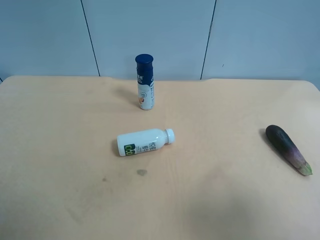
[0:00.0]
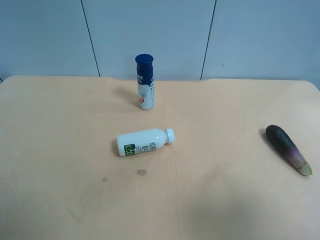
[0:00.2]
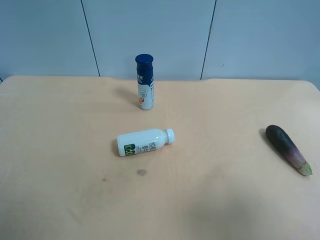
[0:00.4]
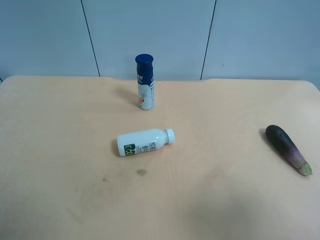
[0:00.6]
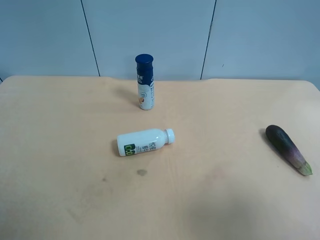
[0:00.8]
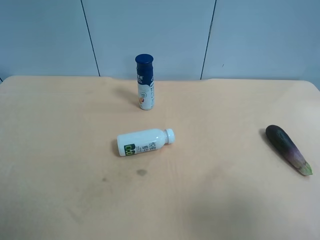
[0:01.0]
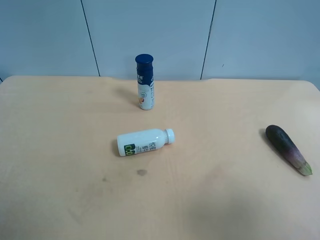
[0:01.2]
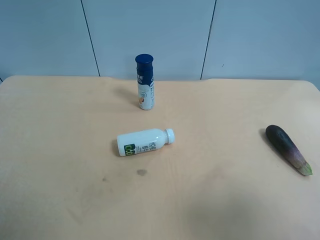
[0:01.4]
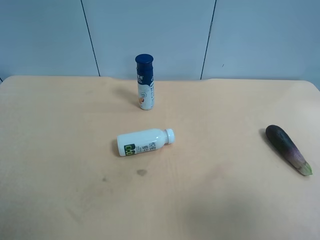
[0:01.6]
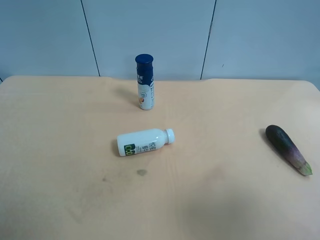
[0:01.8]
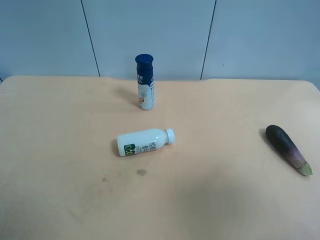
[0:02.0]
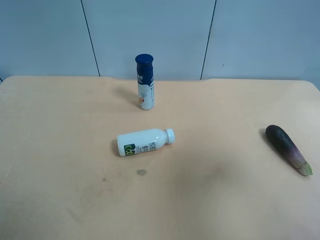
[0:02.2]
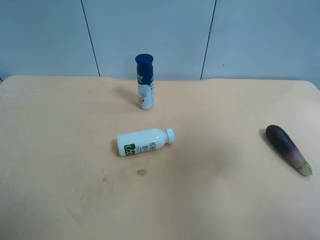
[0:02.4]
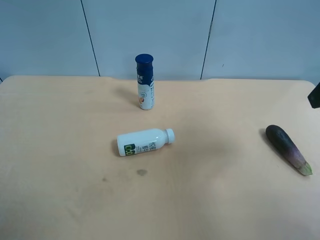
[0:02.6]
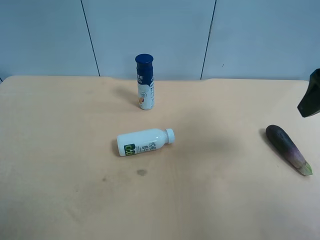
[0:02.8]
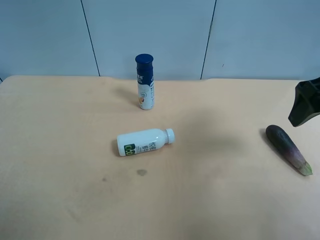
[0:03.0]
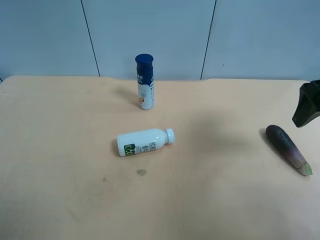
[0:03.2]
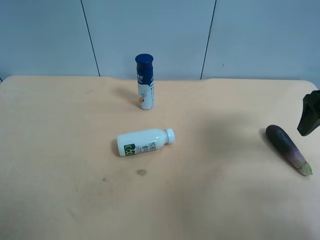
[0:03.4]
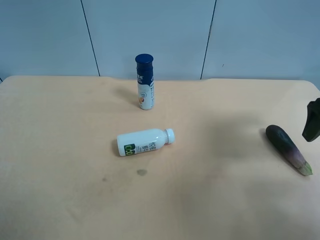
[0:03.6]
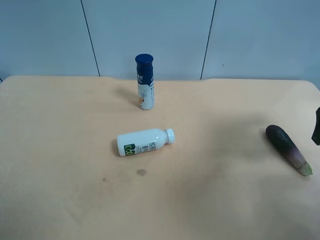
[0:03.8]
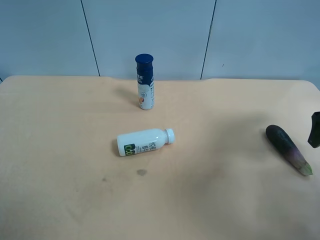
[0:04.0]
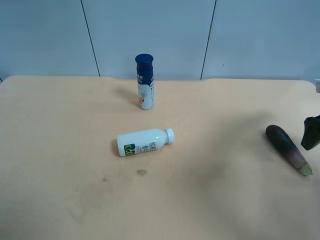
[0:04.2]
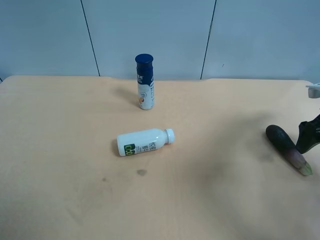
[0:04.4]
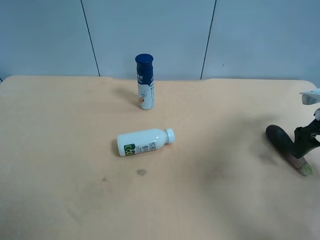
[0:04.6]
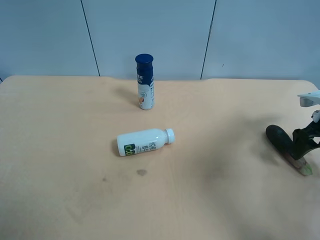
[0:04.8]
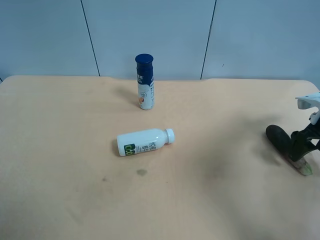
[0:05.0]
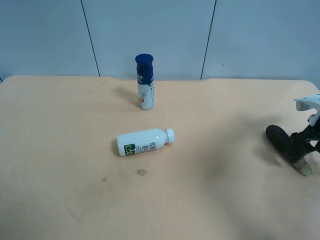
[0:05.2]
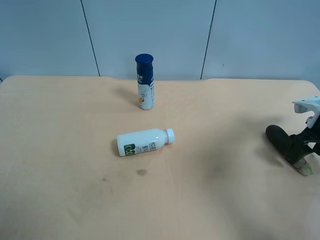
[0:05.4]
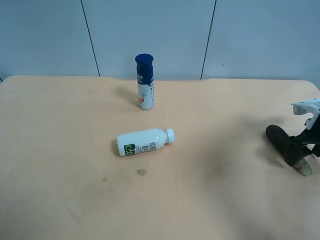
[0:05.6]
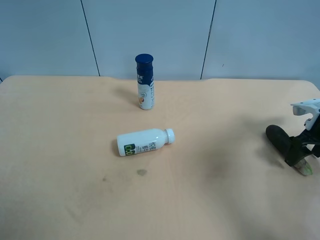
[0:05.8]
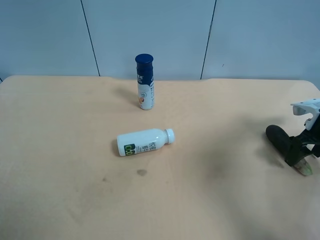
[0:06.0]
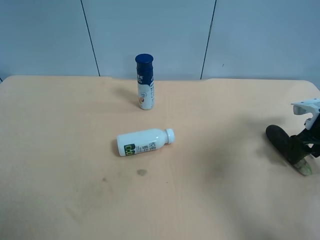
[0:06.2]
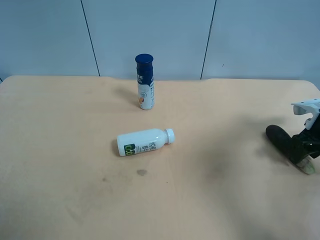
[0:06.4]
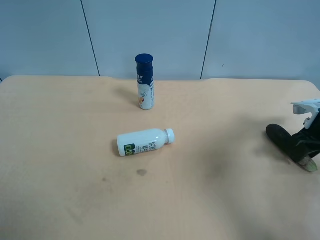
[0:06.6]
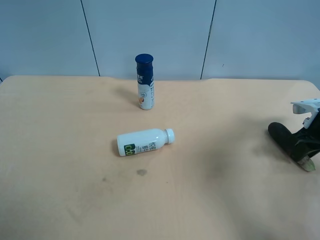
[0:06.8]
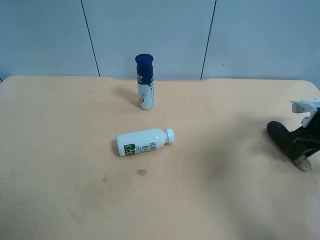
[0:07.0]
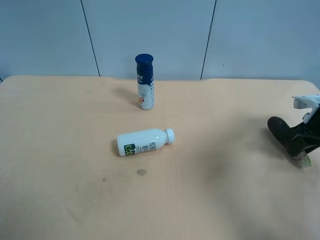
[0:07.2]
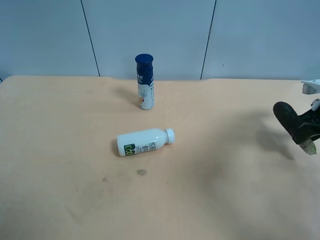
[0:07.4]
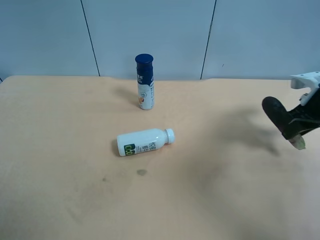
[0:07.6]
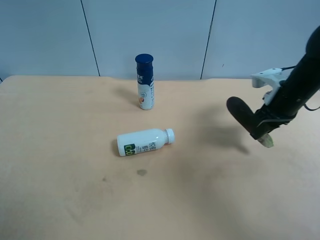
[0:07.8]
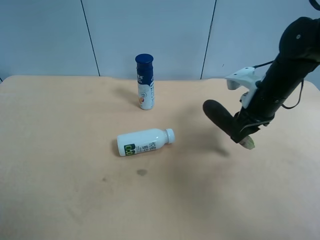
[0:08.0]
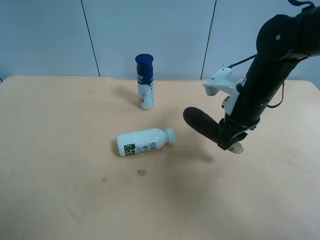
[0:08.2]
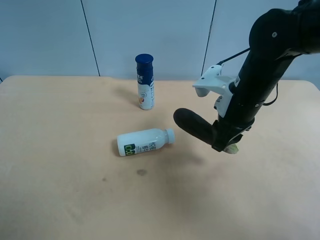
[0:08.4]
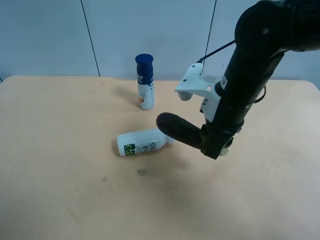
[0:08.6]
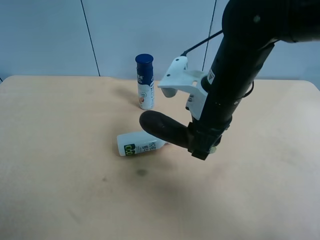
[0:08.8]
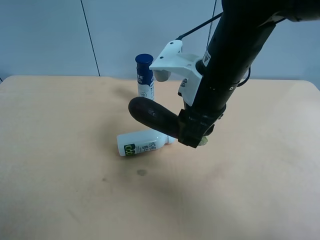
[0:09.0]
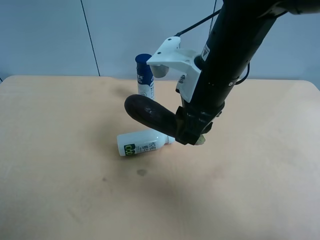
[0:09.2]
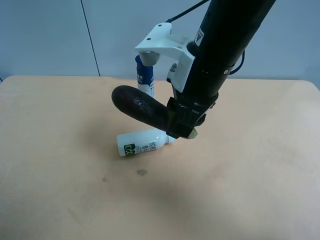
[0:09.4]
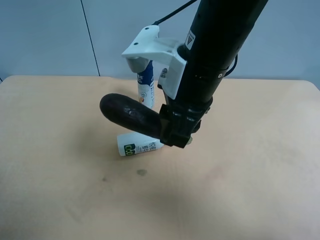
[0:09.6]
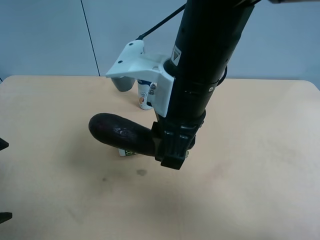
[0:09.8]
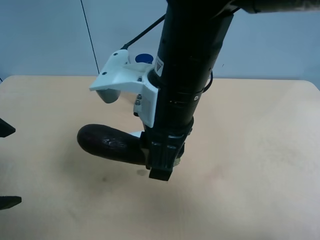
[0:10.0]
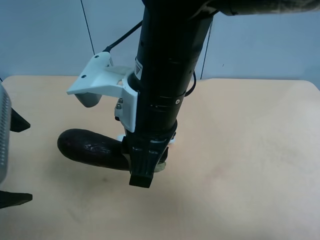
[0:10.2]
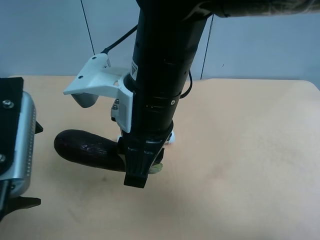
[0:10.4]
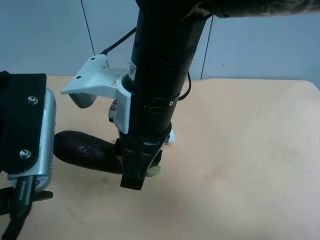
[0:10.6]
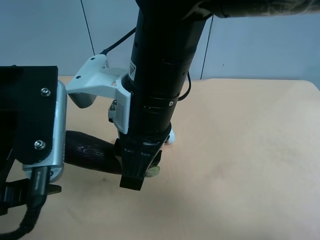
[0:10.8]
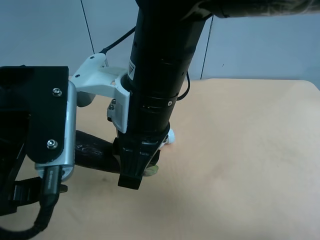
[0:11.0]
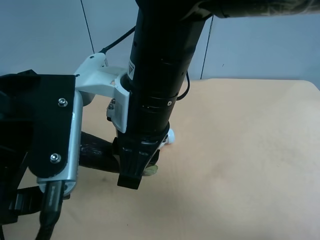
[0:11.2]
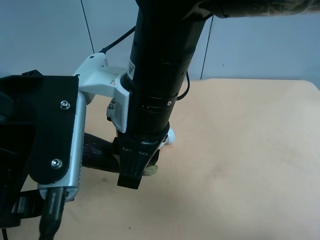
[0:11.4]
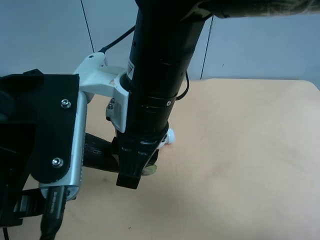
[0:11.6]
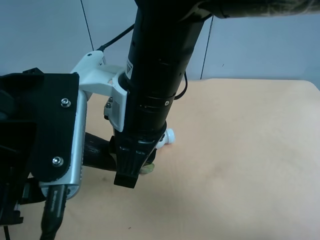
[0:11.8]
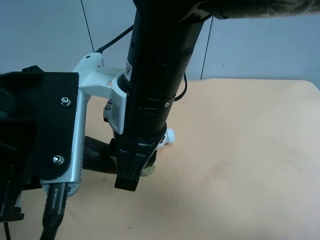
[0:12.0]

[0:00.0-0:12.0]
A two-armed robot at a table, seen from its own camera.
Task of the whole recording: use the right gripper to pick up the item and transfer it from the right gripper to the left gripper.
0:00.0 to 0:01.6: Both grippers stay about where they are.
0:01.6 to 0:03.0: The right gripper goes about 25 cm forward.
0:03.0 to 0:04.4: The right gripper travels downward, to the right and forward by approximately 20 cm.
0:04.4 to 0:06.0: The right gripper goes roughly 5 cm downward.
0:06.0 to 0:07.6: The right gripper moves upward, roughly 5 cm, and closes up.
0:07.6 to 0:09.0: The left gripper shifts by about 5 cm. Meanwhile the right gripper travels to the left by approximately 30 cm.
0:09.0 to 0:10.4: The right gripper travels to the left and backward by some 10 cm. Meanwhile the left gripper is displaced to the right and forward by approximately 15 cm.
0:10.4 to 0:12.0: The left gripper closes.

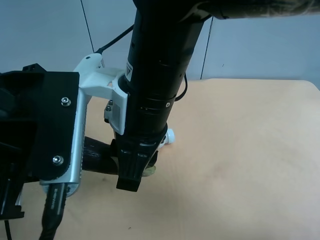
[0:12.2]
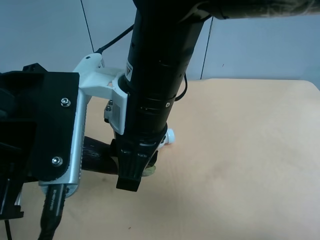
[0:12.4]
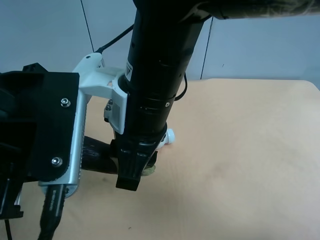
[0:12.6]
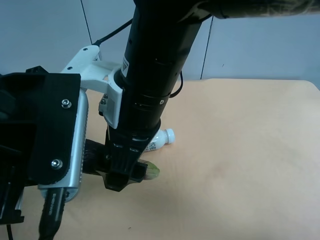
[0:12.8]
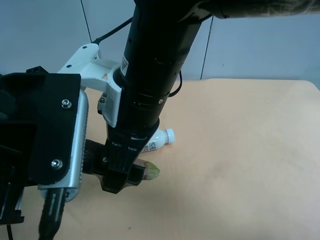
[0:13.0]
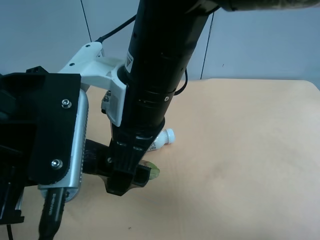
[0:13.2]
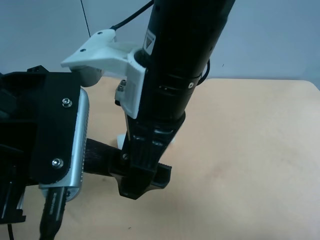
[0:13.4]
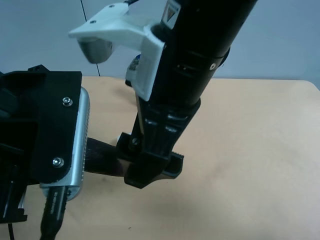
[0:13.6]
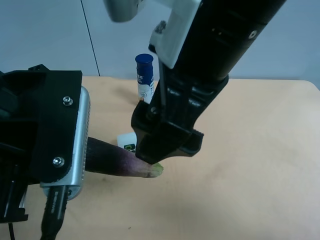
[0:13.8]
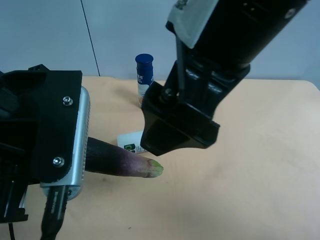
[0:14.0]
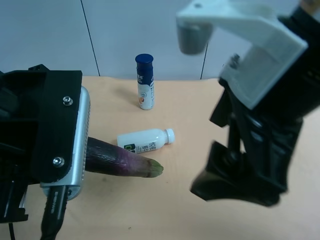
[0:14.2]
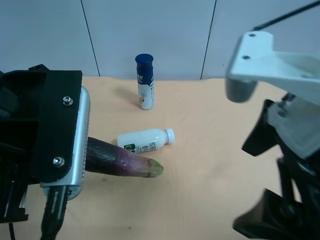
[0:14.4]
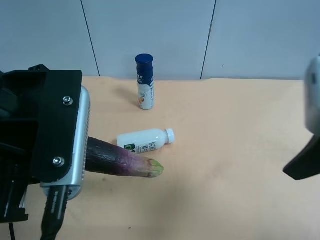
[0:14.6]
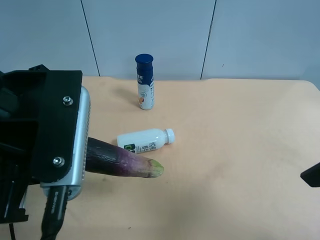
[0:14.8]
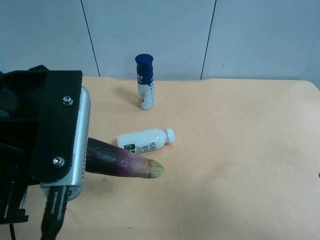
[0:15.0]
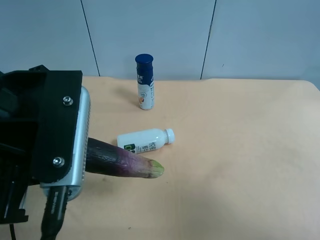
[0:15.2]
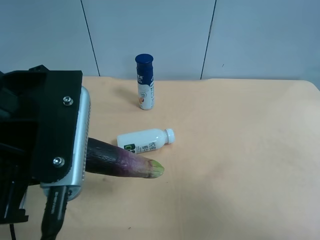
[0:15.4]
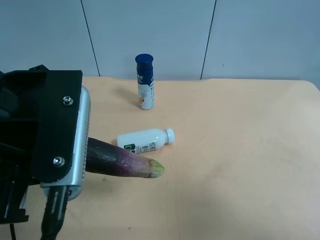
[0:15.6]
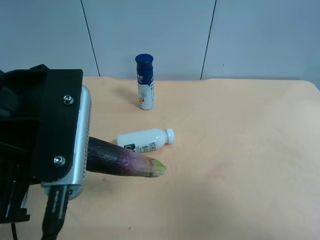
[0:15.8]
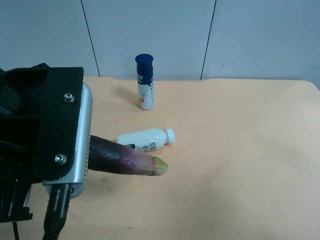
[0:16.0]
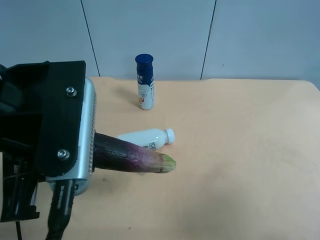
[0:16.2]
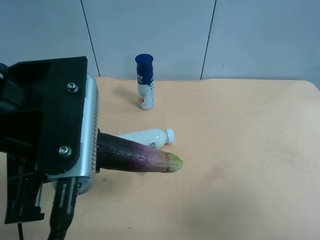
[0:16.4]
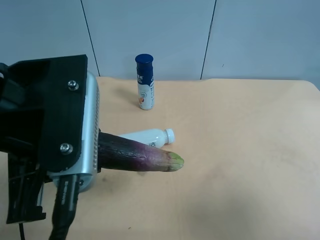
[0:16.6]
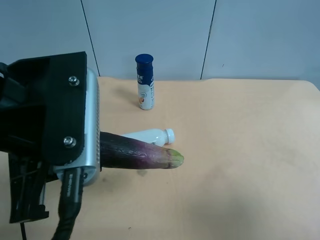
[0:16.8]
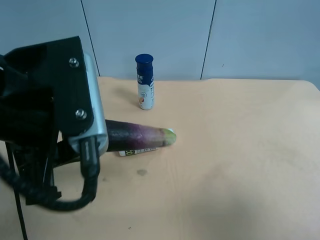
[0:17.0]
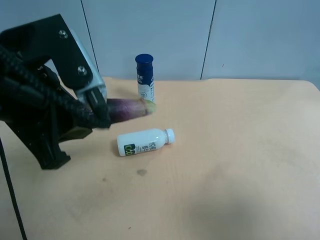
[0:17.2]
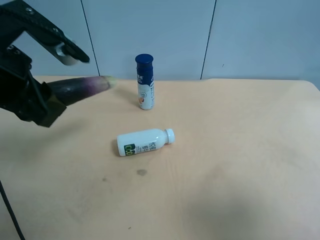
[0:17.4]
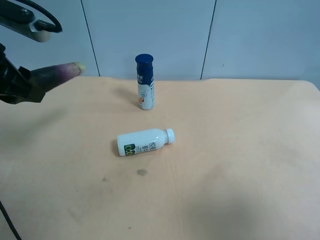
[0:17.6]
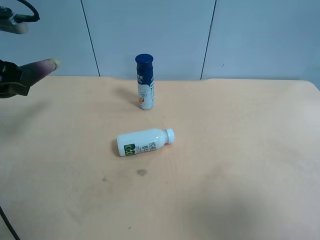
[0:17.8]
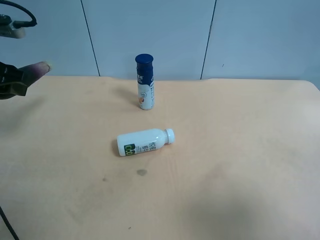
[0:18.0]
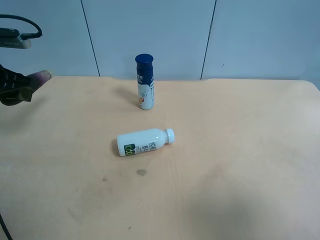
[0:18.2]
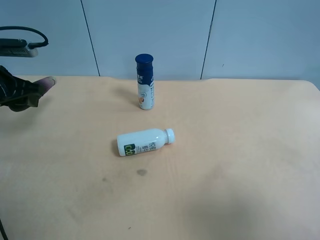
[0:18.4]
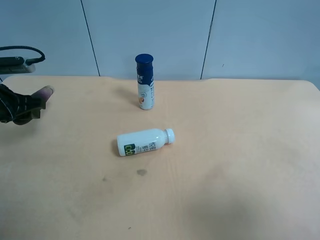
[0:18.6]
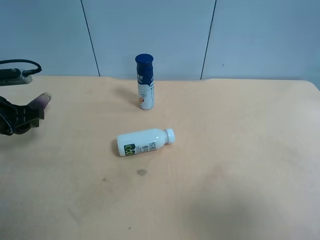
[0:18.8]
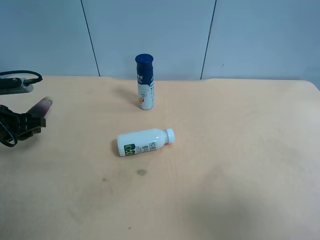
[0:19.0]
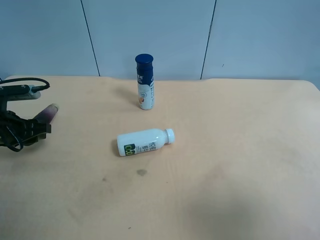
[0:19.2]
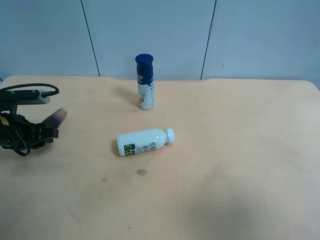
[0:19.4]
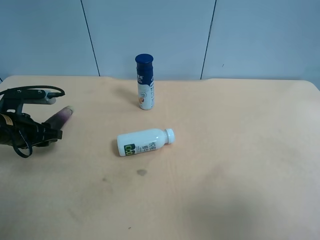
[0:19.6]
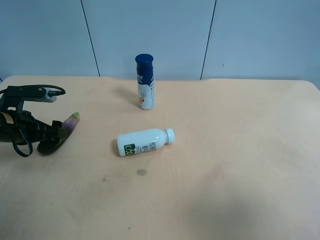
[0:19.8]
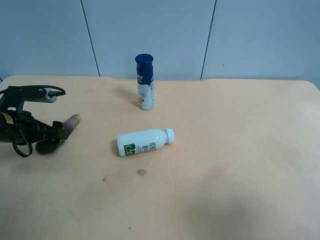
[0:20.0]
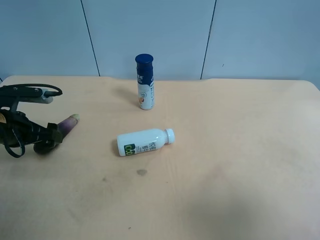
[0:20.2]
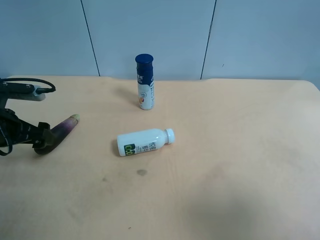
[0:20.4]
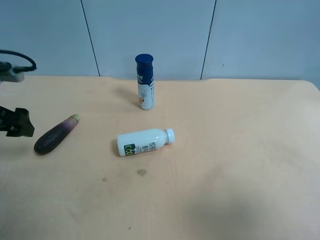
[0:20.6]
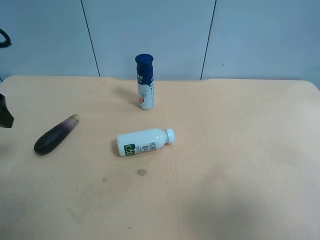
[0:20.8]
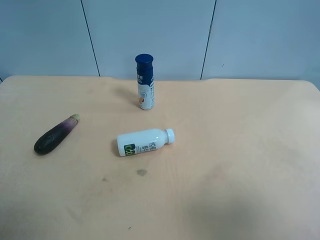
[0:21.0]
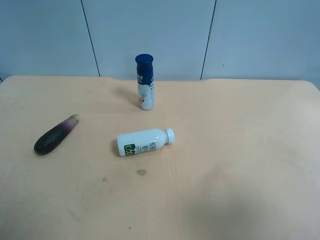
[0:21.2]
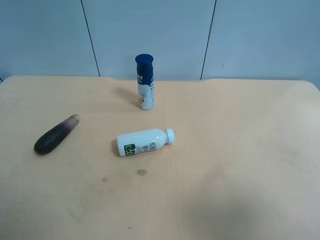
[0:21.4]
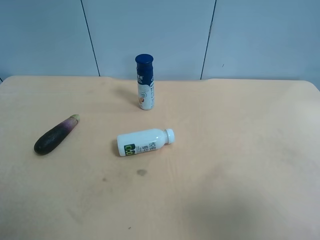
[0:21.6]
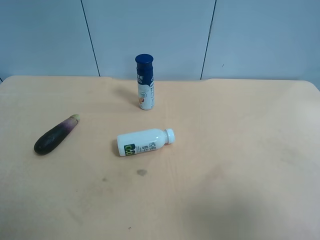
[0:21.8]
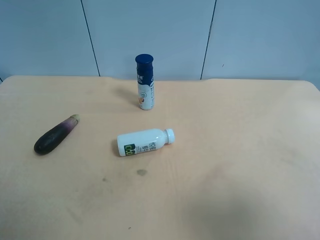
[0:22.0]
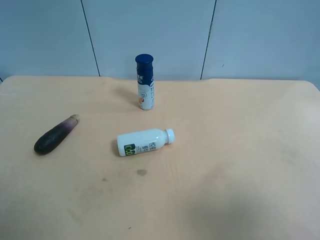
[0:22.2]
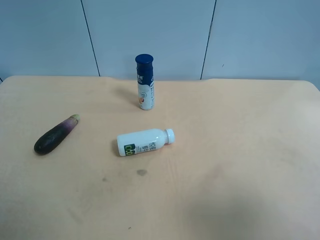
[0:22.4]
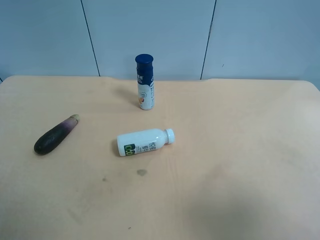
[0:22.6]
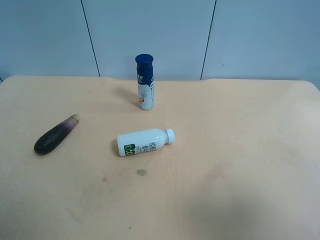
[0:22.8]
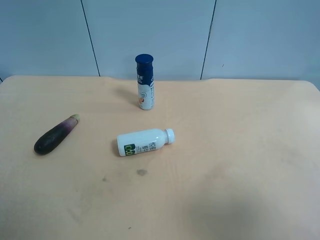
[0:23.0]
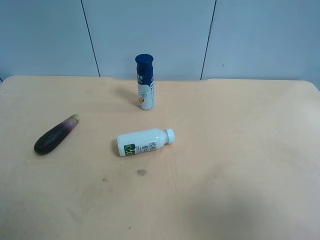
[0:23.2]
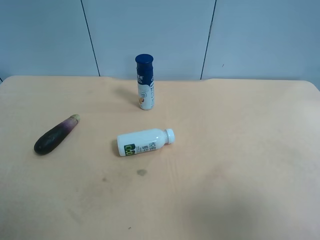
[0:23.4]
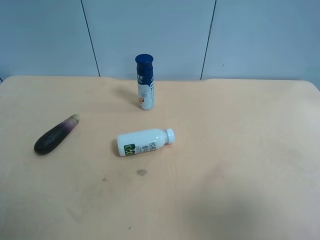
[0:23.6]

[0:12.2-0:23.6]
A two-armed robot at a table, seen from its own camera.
Task of the whole recording: use the right gripper to pick up the item and transfer it from the right gripper to the left gripper.
0:12.2 to 0:13.6: The right gripper is displaced upward by approximately 5 cm, and opens.
0:13.6 to 0:15.0: The right gripper moves to the right and backward, some 25 cm.
0:16.4 to 0:17.8: The left gripper goes roughly 20 cm to the left and forward.
0:17.8 to 0:19.4: The left gripper is displaced downward by about 15 cm.
0:19.4 to 0:20.8: The left gripper travels upward by about 15 cm, and opens its fingers.
0:20.8 to 0:22.2: The left gripper goes some 20 cm backward.
